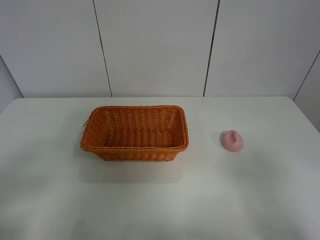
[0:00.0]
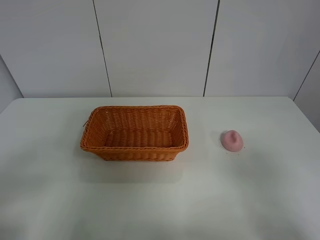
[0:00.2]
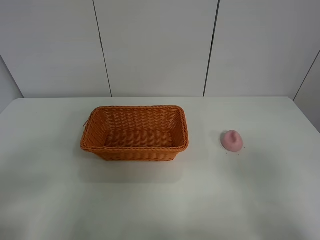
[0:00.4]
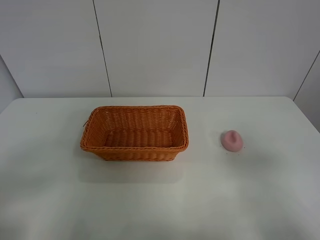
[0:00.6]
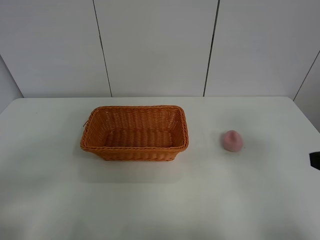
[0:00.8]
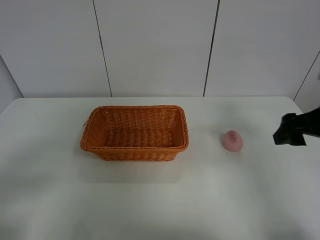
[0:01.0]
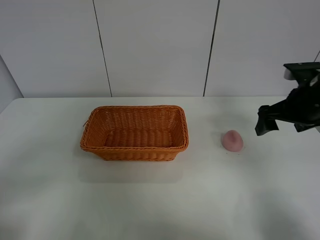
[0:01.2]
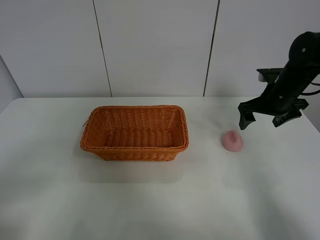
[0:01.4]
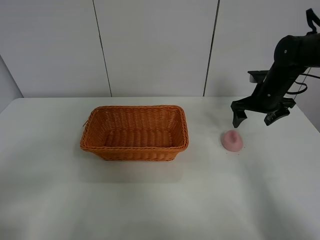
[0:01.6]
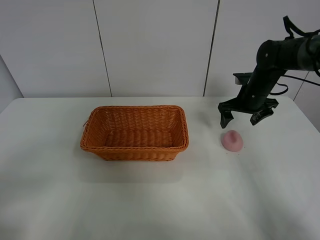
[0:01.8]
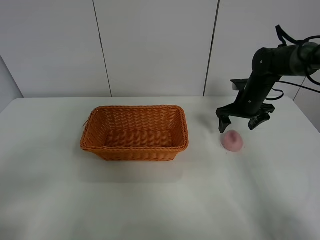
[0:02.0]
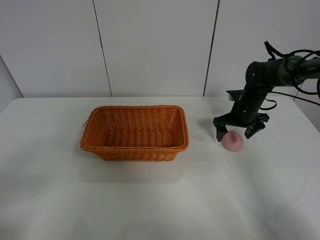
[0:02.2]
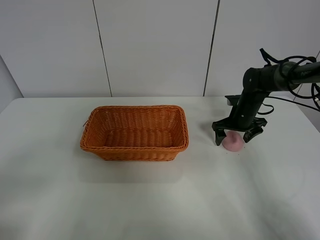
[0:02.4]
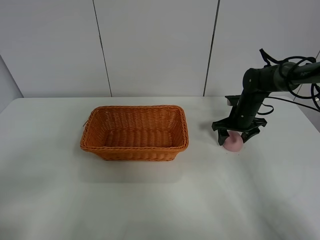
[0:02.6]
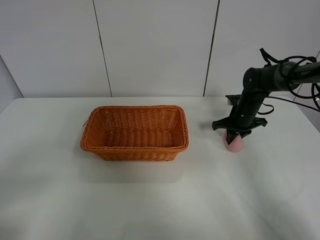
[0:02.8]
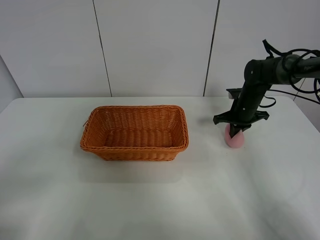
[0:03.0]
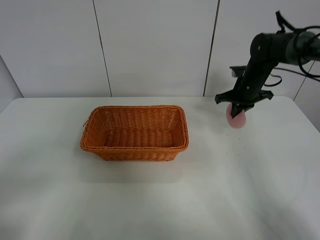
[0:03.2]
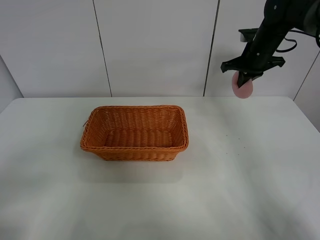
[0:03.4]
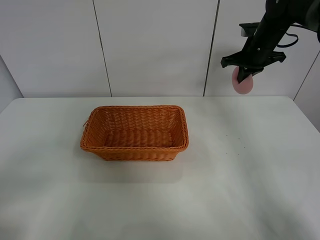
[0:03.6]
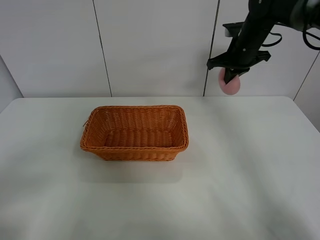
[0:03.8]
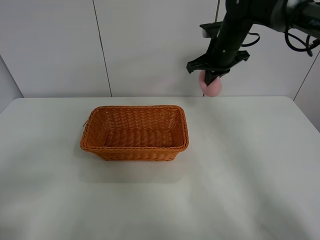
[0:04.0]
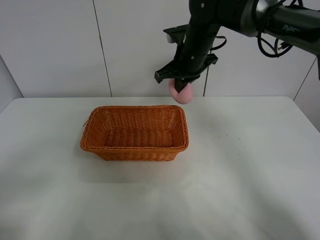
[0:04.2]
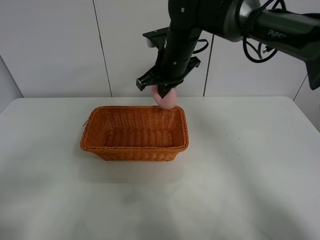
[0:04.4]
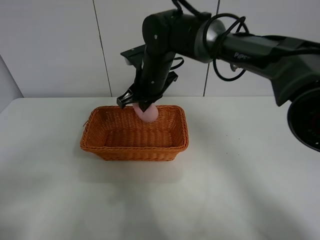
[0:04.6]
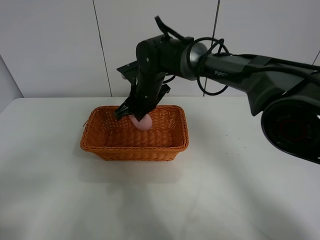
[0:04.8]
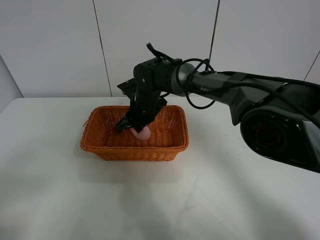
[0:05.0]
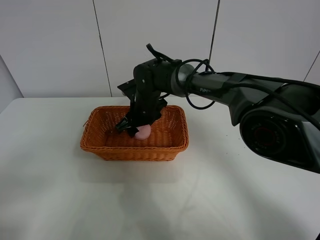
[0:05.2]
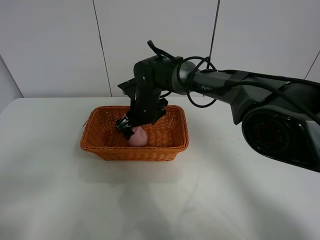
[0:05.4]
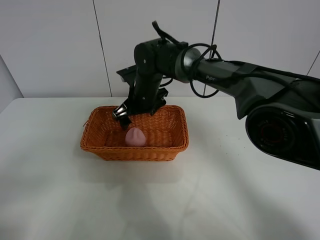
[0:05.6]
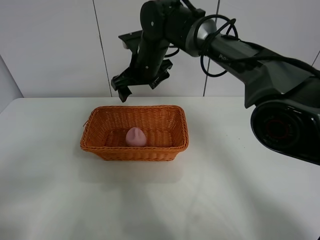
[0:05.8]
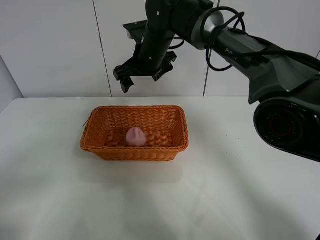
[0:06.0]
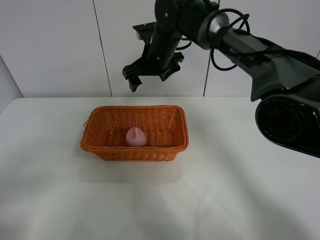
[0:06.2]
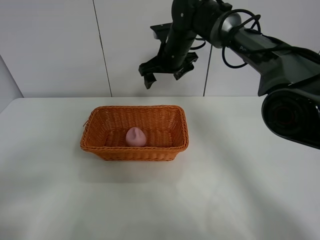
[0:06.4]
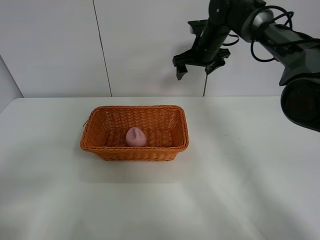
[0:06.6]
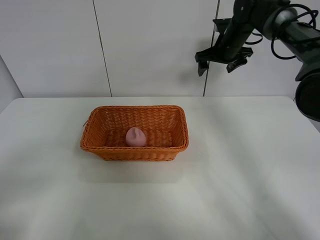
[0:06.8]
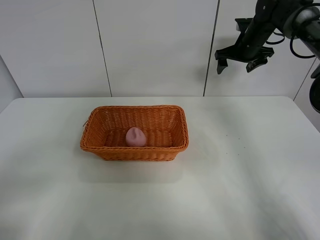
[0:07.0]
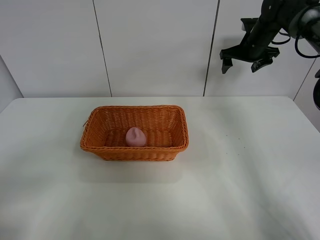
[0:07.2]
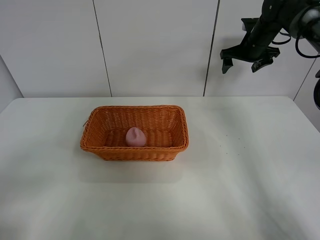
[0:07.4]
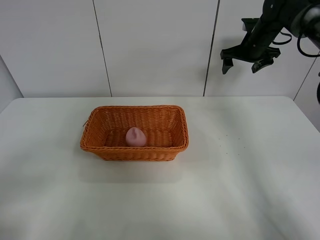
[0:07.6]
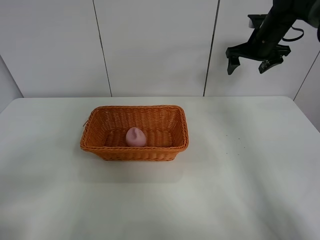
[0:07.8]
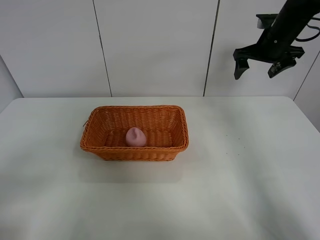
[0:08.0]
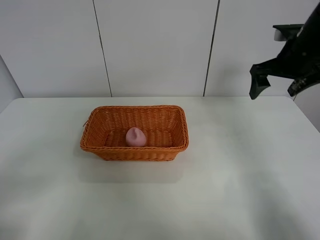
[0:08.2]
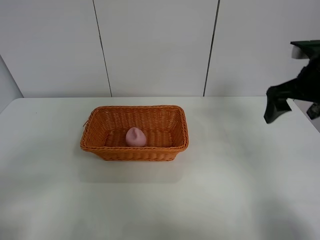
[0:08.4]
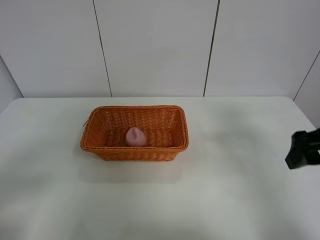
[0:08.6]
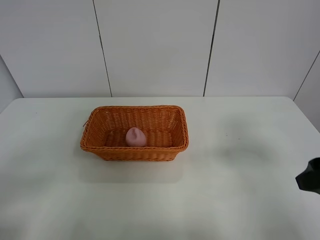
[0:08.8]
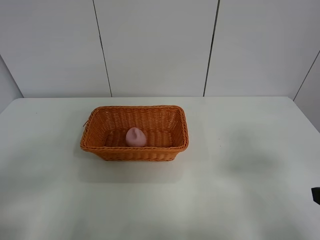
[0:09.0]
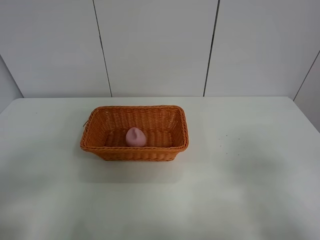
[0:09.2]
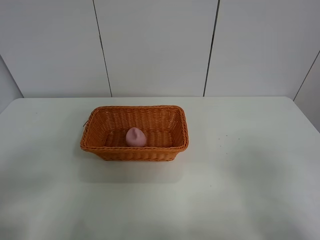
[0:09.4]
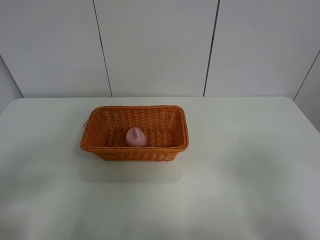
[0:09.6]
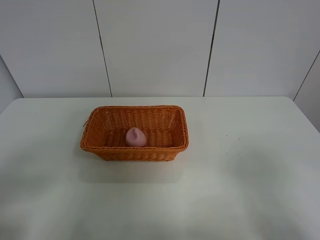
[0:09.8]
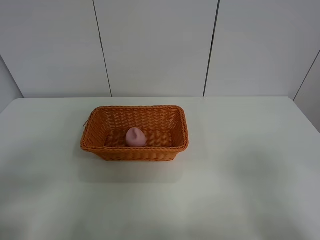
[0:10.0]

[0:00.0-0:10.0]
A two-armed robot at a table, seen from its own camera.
Step, 0:00.0 to 0:02.8: Grasp the peach with right gripper.
Step, 0:03.0 to 0:06.0: Place the peach in the basket with right gripper.
0:00.0 to 0:01.4: The right gripper shifts about 35 cm forward.
0:01.4 to 0:02.8: The right gripper shifts approximately 10 cm downward and forward, and closes up.
0:02.8 to 0:04.2: The right gripper shifts roughly 25 cm to the left and upward.
0:04.2 to 0:05.8: The right gripper heads to the left, covering about 10 cm, moves about 15 cm downward and comes back, and opens its fingers.
0:05.8 to 0:07.2: The right gripper shifts roughly 30 cm to the right.
0:07.2 to 0:08.6: The right gripper is displaced backward by approximately 35 cm.
0:08.6 to 0:10.0: The right gripper heads backward, covering about 15 cm.
